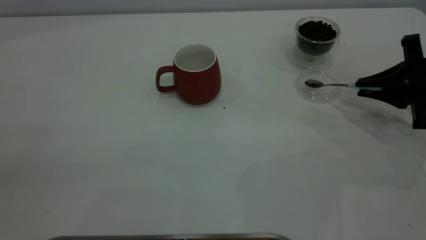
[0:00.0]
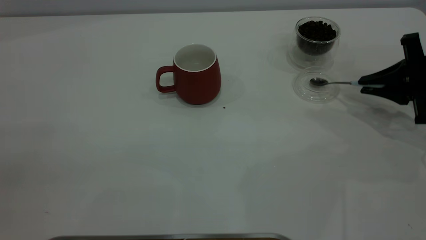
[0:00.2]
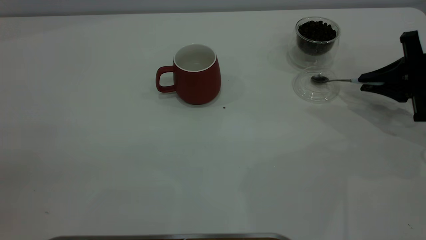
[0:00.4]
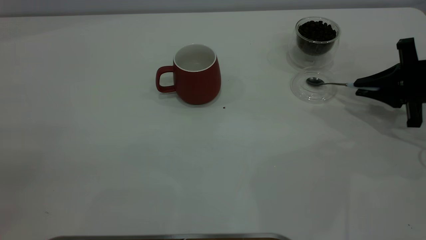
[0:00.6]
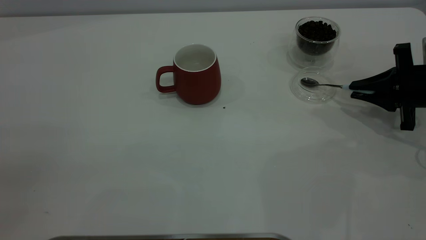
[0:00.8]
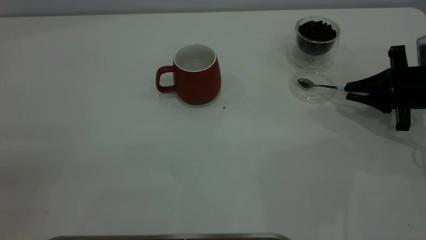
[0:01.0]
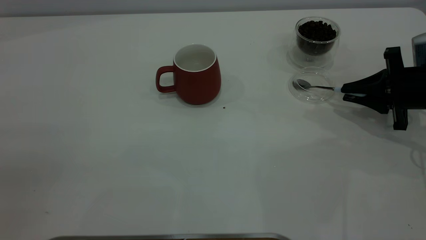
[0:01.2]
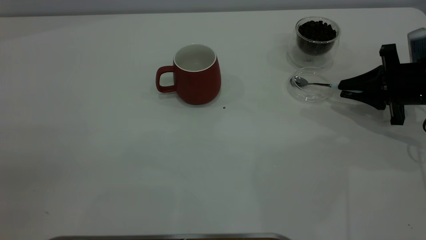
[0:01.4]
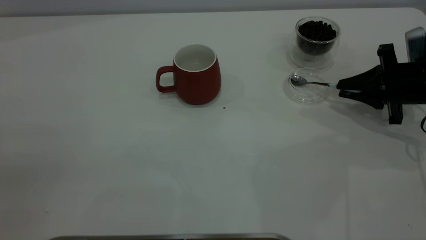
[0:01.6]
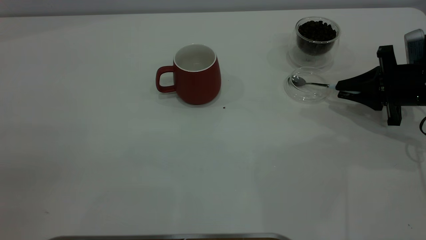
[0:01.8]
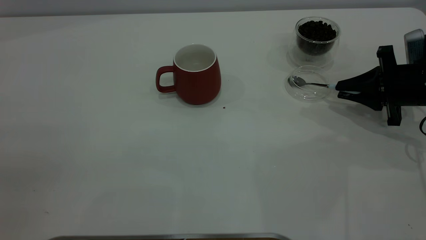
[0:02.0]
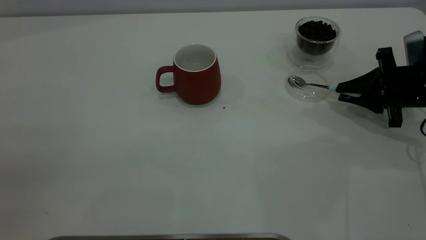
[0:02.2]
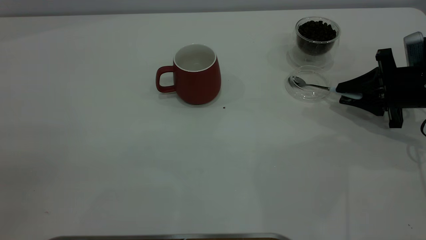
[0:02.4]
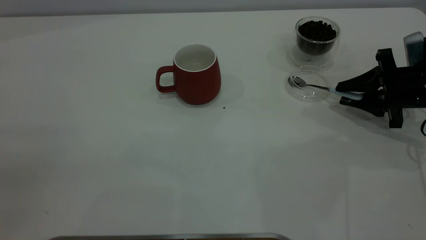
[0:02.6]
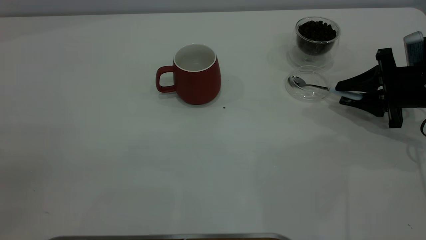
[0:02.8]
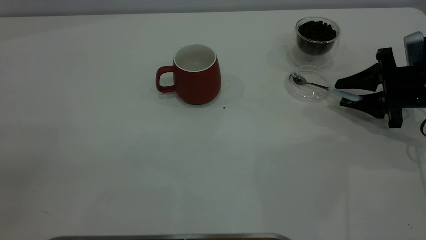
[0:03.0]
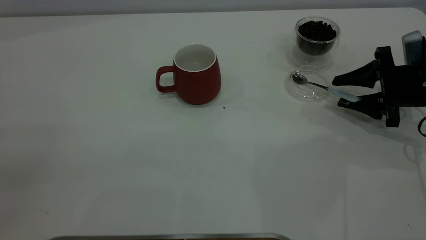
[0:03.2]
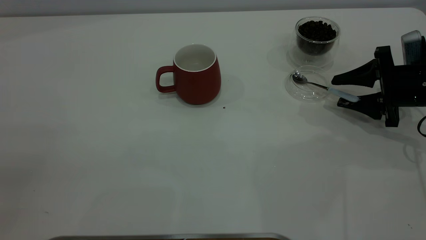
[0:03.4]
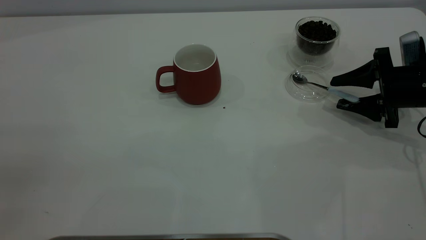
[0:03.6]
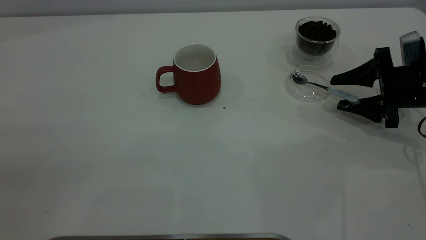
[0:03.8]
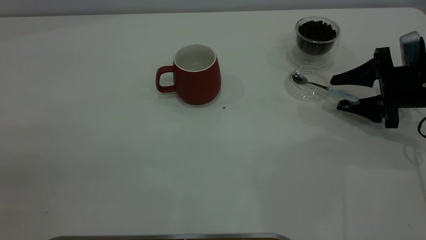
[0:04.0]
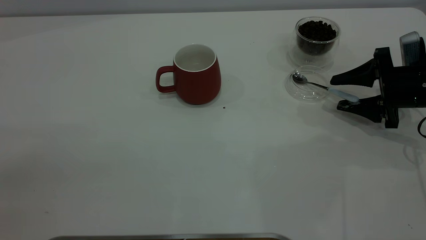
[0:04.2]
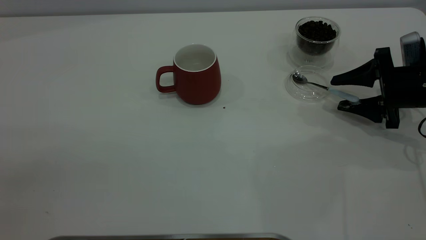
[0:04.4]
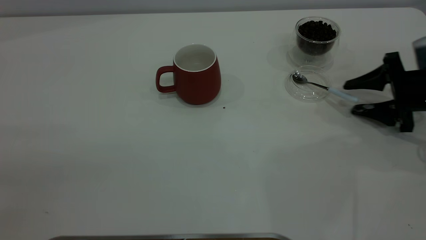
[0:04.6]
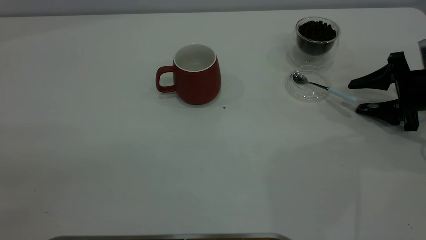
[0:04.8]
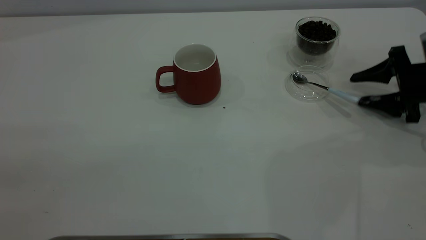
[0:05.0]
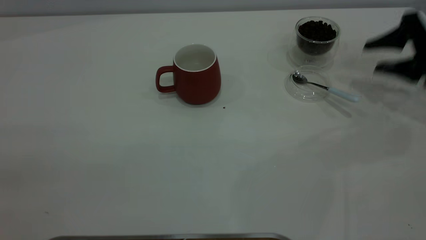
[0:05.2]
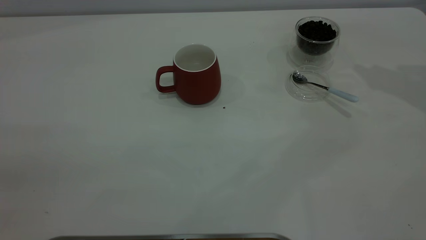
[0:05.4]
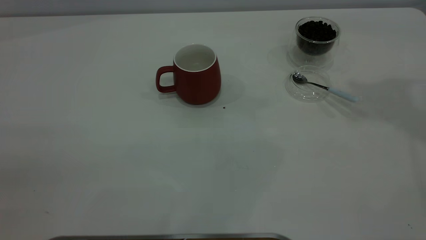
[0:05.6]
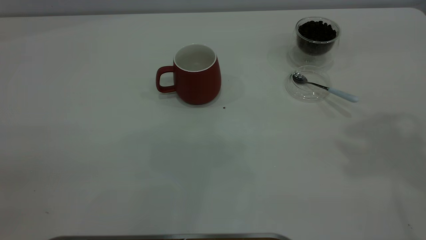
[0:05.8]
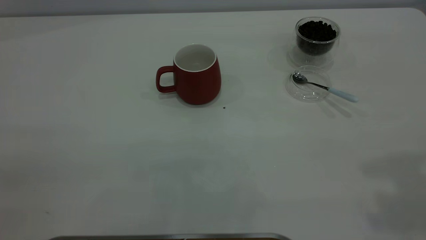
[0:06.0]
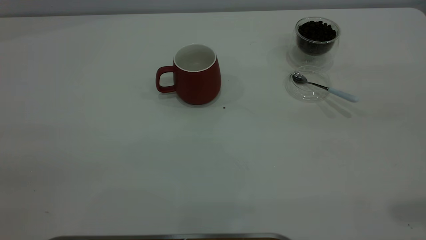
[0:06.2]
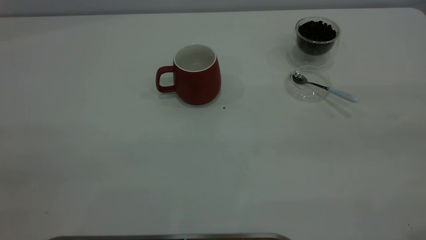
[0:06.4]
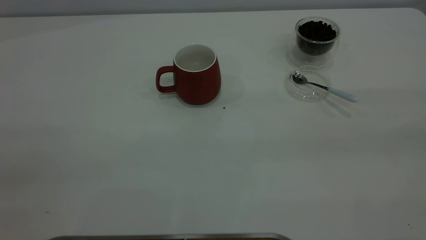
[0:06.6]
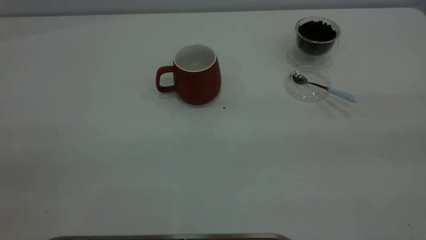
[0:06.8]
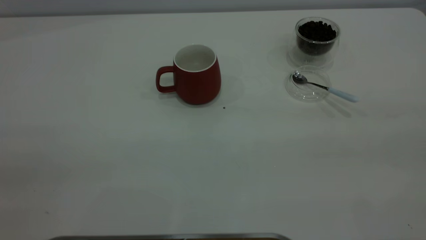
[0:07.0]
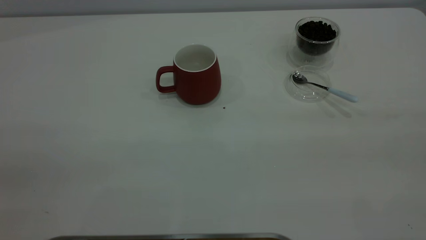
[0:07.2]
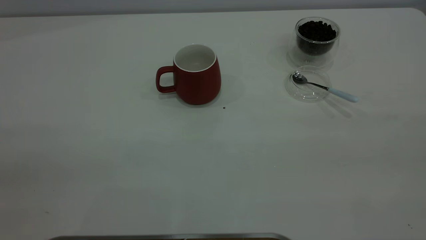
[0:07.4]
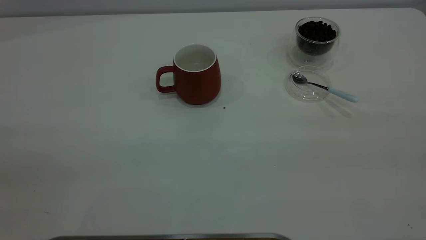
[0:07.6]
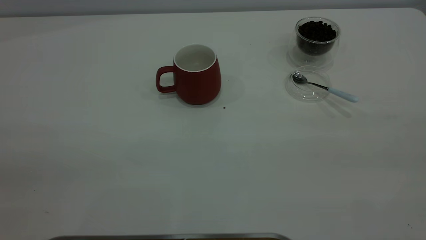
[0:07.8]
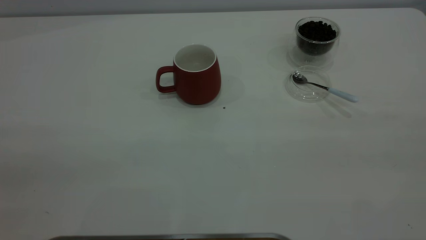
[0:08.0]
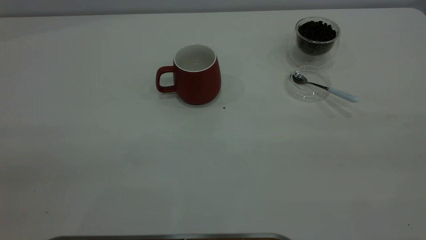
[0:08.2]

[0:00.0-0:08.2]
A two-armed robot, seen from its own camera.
Task of the whole recording: the left gripper place the red cup in the center of the table, the right gripper take the blue spoon from the cup lid and scoop out the coffee beans from the coffee cup and put them into the red cup, the right gripper put the spoon back into the cup lid.
Step, 0:00.0 to 0:05.0: Place the spoon back in its original place.
0:00.0 to 0:01.6: There are only small adjustments of the grippers.
0:01.6 to 0:03.2: The right gripper opens.
0:03.2 to 0:05.0: The grippers move only a little.
0:05.0 to 0:06.6: The right gripper heads upward and backward, covering some 40 cm.

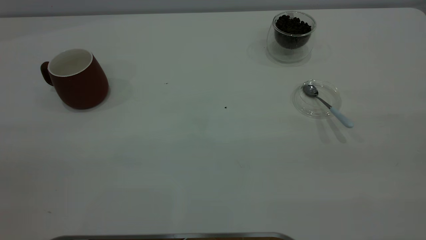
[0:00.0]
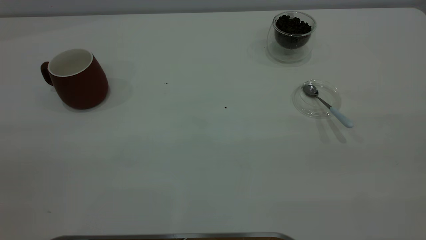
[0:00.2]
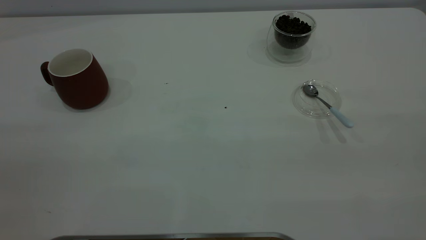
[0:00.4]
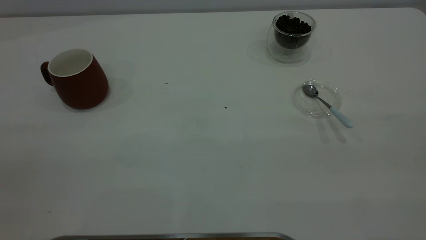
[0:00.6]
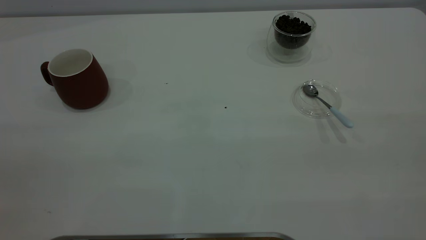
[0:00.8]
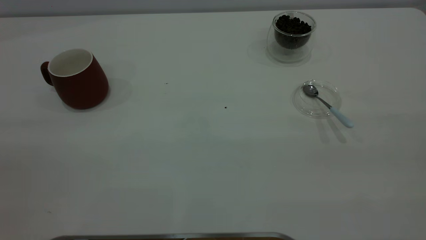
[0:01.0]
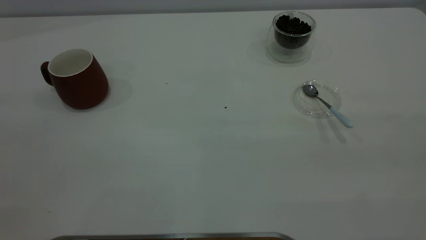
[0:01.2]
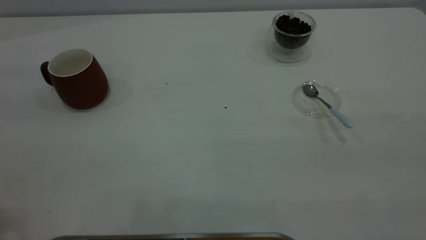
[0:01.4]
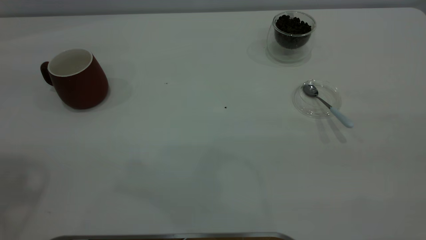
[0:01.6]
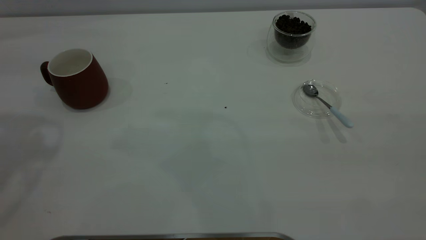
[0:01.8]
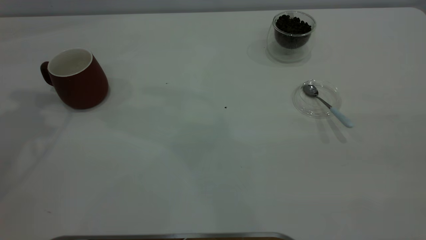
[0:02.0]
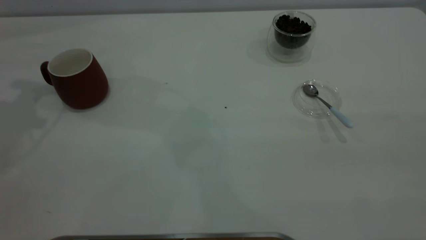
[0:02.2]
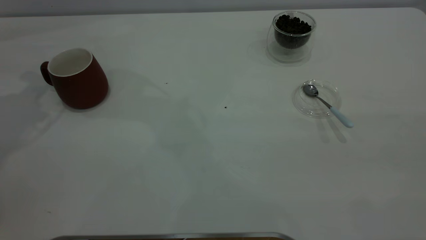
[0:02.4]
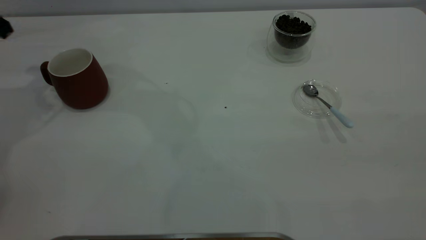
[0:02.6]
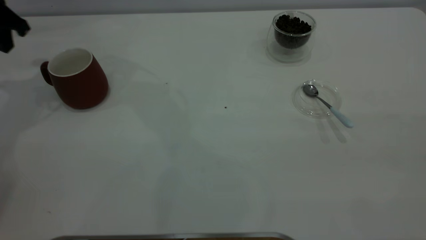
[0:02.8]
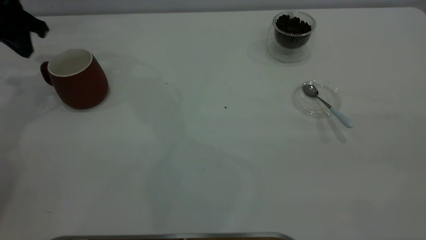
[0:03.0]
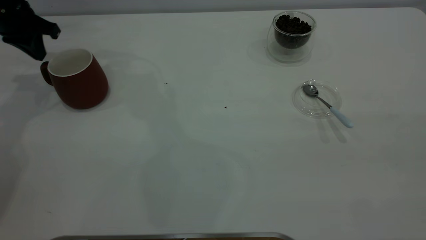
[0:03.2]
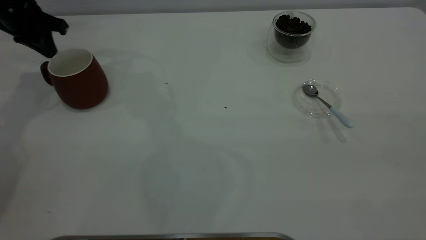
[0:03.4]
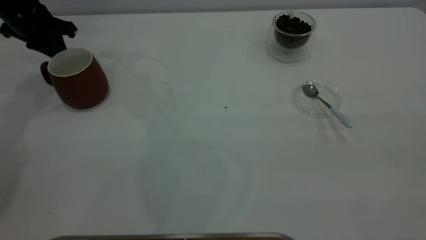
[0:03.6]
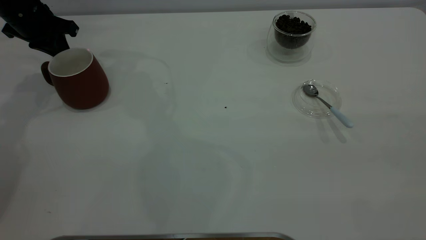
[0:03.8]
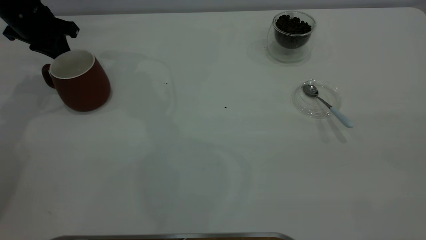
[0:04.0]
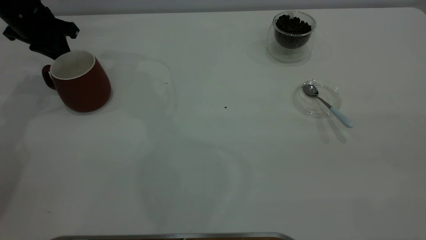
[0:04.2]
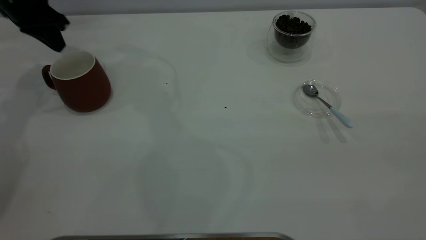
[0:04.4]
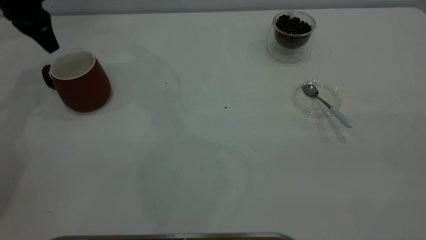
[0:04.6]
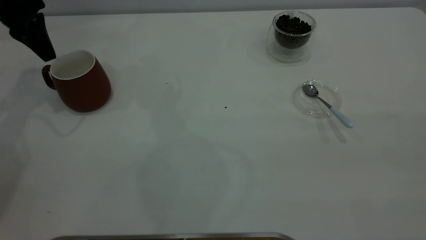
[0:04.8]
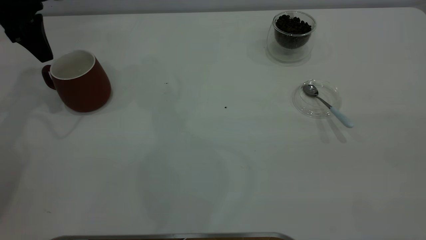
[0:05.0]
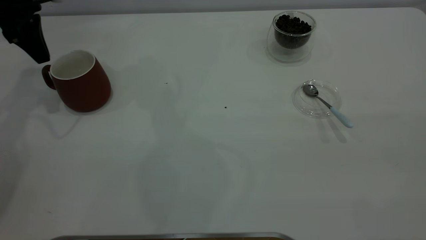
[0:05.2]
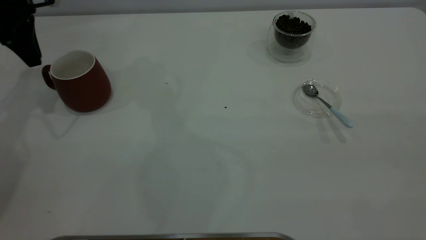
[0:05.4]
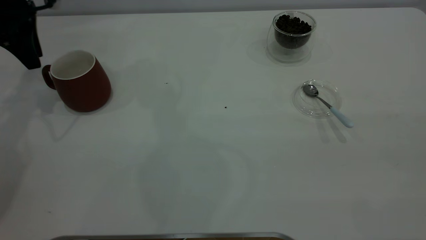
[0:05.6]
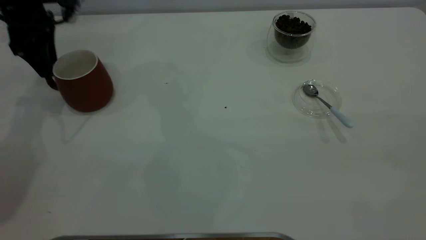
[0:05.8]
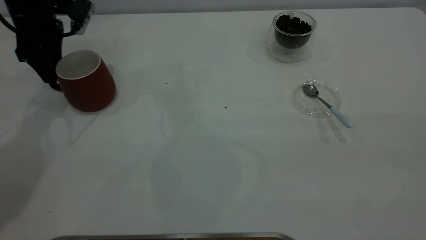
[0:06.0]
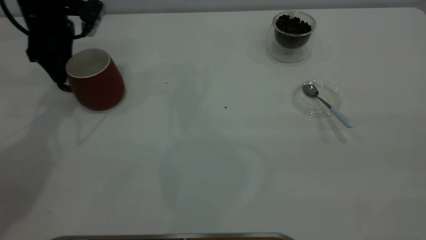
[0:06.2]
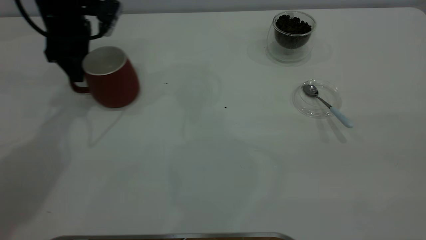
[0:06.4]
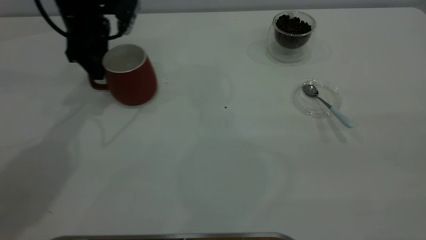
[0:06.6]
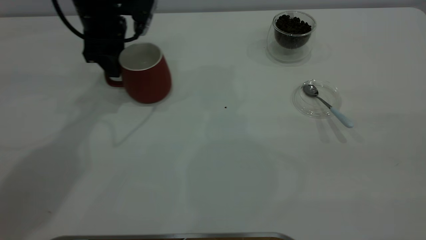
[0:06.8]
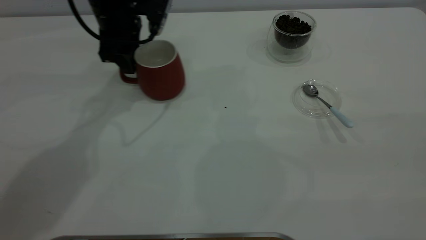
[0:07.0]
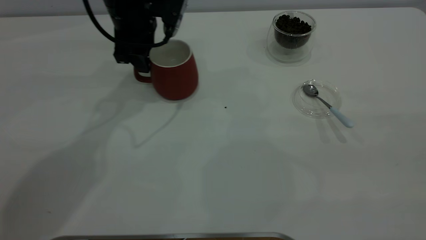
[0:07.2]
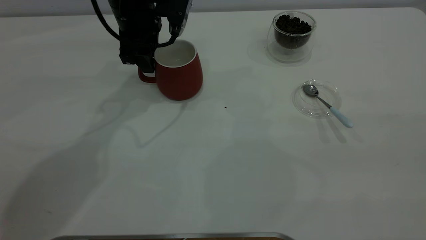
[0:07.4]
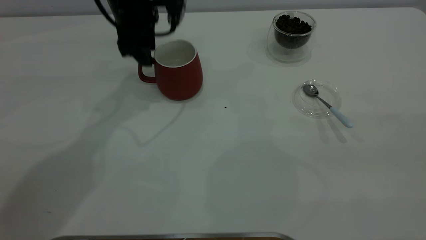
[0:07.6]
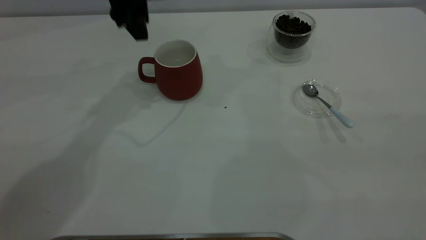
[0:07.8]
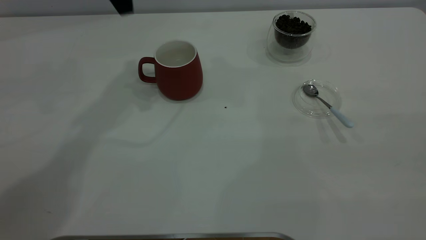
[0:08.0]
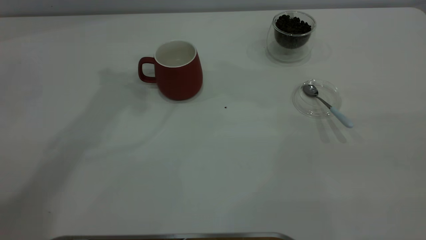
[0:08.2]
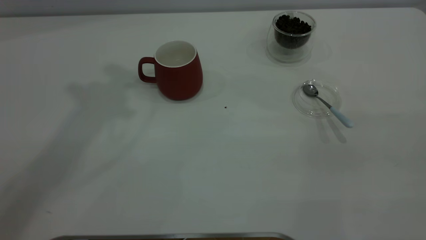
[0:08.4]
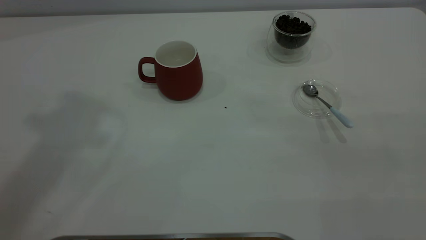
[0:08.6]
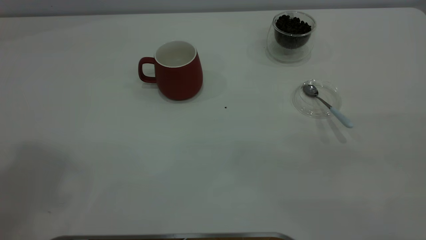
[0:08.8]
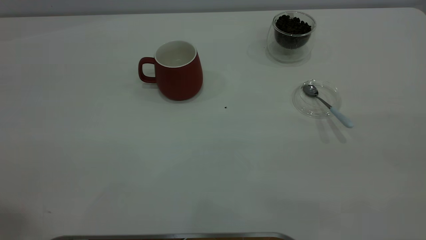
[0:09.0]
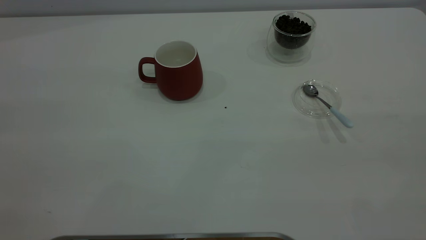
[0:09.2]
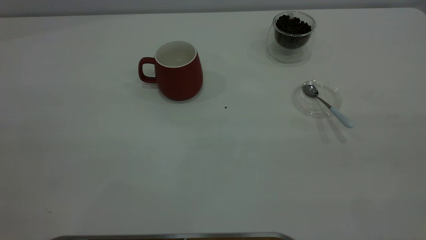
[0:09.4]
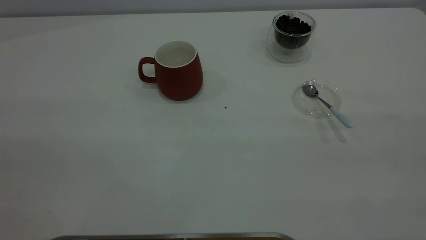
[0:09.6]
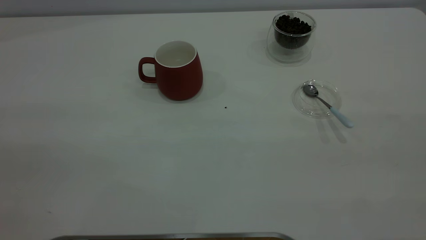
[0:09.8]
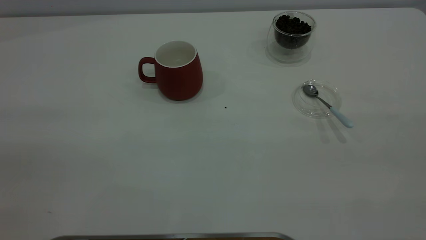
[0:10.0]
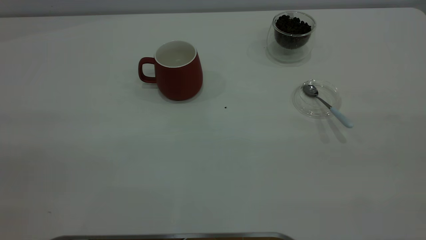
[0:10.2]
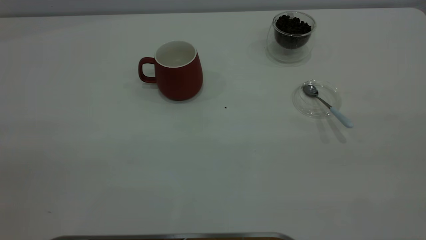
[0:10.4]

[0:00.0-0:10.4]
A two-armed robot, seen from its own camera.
Task of the whole recording: the left gripper place the red cup in the center of the table, the right gripper take the blue spoon from the cup lid and scoop out the coffee beans from the coffee cup and put them into the red cup, the right gripper put the spoon back into the cup lid.
Step, 0:00.0 to 0:07.6: Move the cup to the center of view.
0:01.4 to 0:03.0: The left gripper shifts approximately 40 cm forward and downward, and closes.
0:03.0 to 0:04.4: The grippers move only a little.
0:04.4 to 0:06.0: The left gripper moves approximately 5 cm, and opens.
0:06.0 to 0:07.4: The left gripper moves to the right, approximately 15 cm.
0:07.4 to 0:09.0: The left gripper heads backward, upward and to the left, covering about 50 cm.
